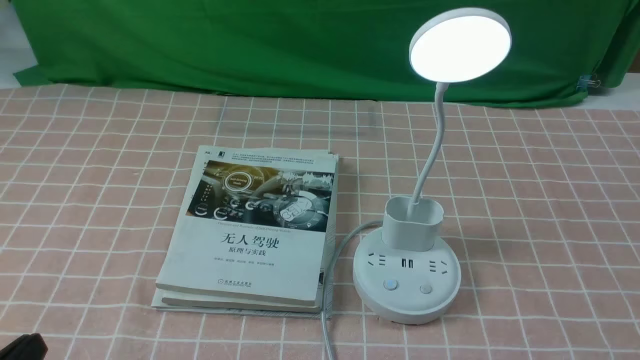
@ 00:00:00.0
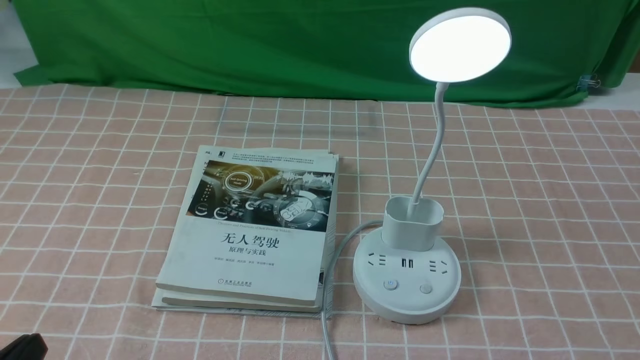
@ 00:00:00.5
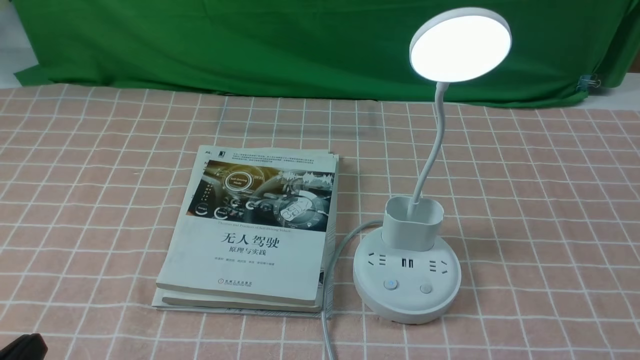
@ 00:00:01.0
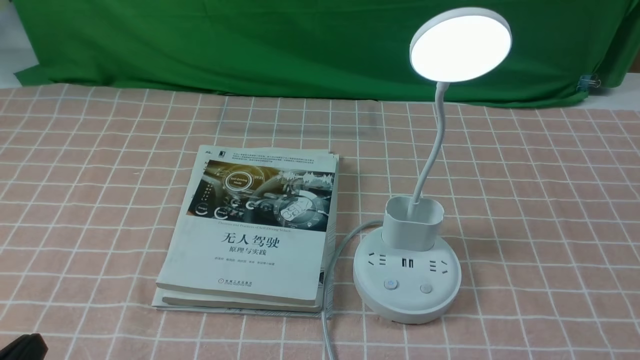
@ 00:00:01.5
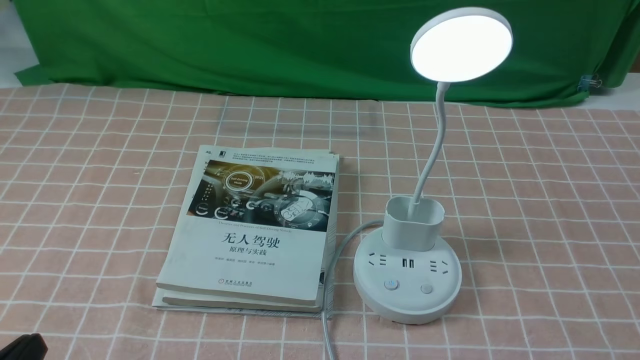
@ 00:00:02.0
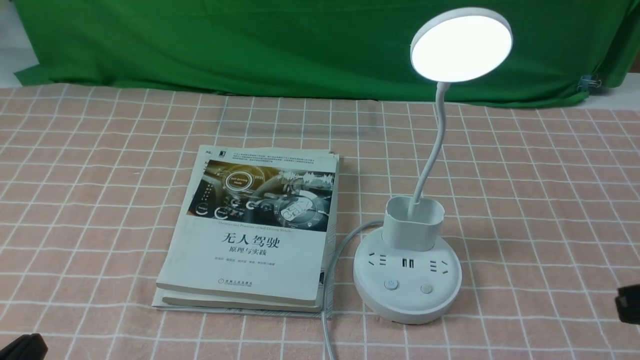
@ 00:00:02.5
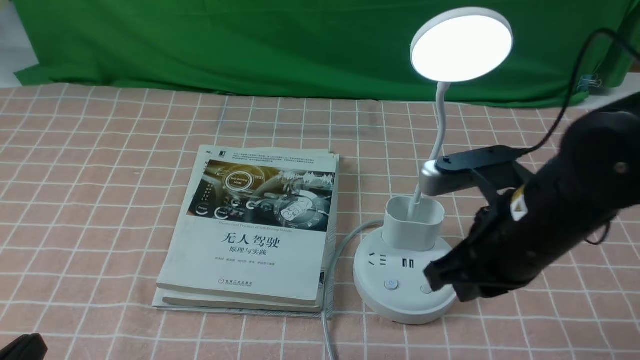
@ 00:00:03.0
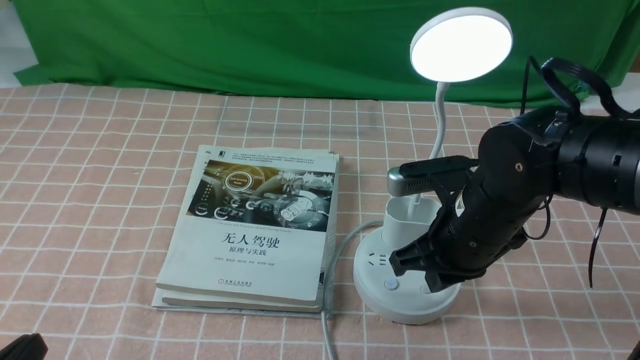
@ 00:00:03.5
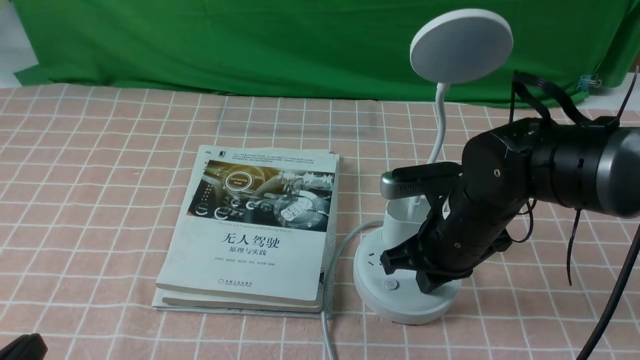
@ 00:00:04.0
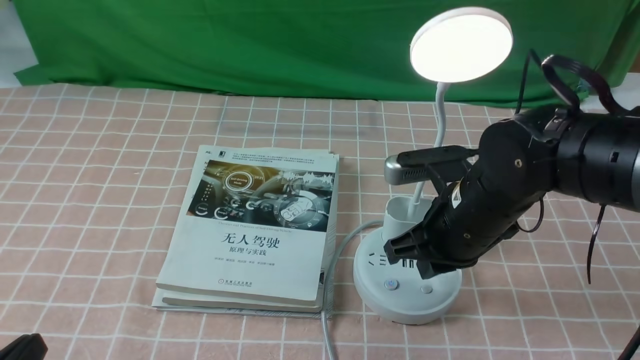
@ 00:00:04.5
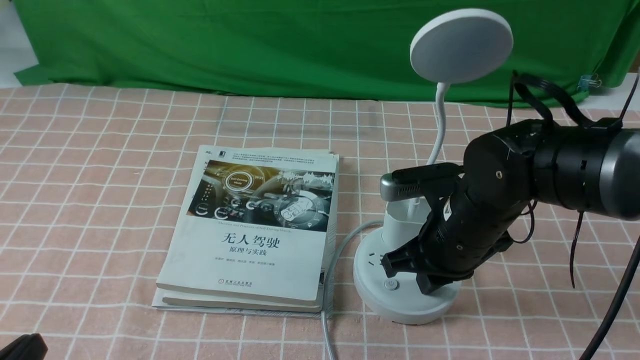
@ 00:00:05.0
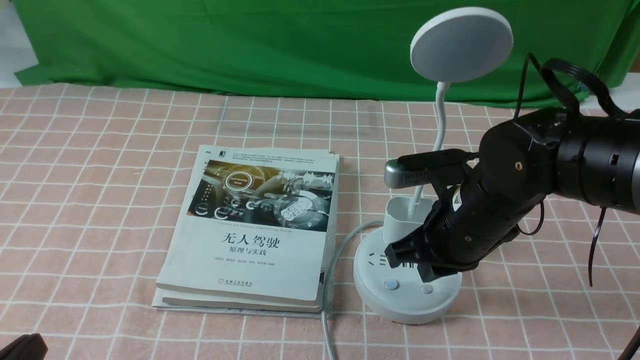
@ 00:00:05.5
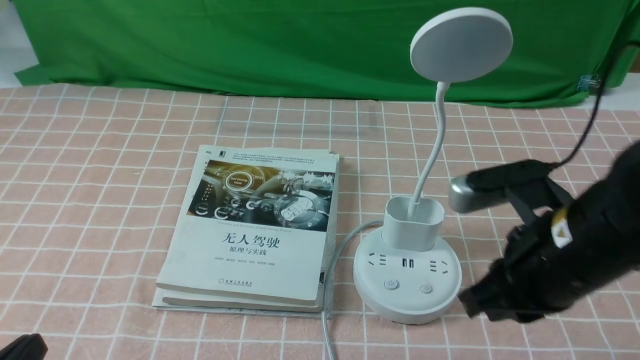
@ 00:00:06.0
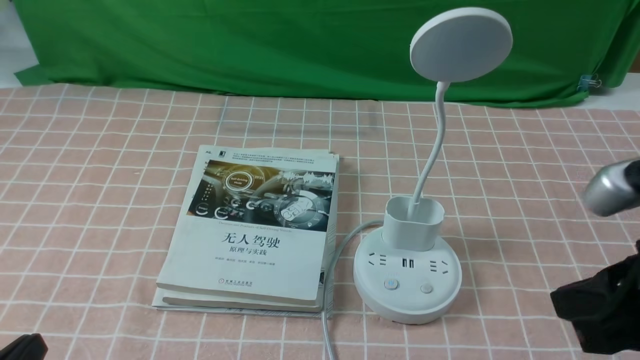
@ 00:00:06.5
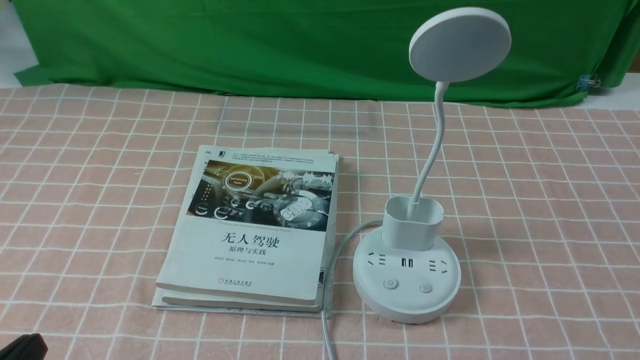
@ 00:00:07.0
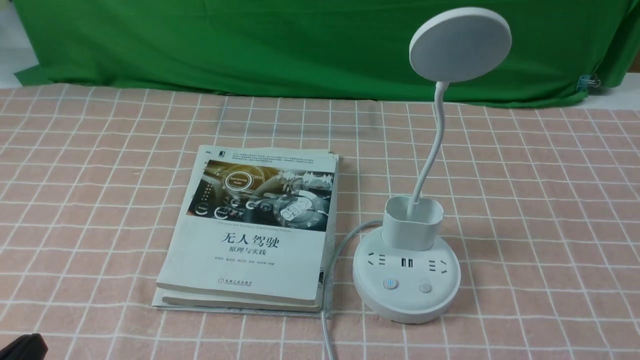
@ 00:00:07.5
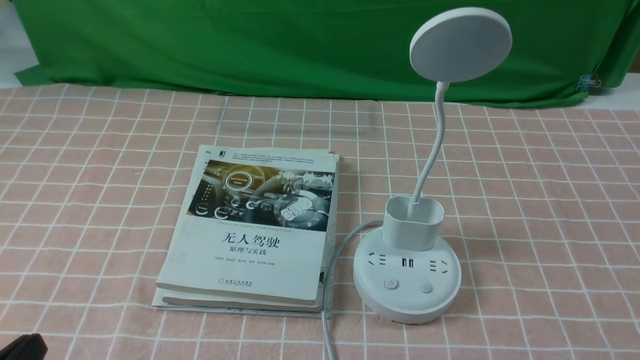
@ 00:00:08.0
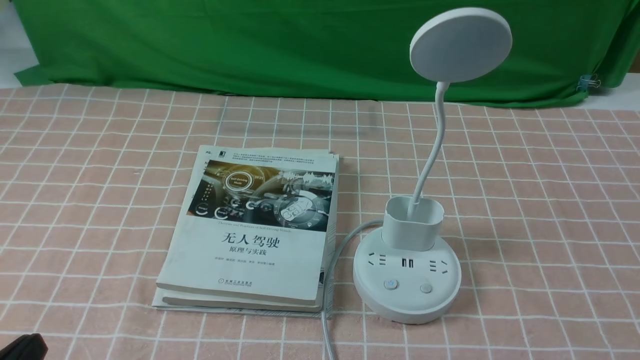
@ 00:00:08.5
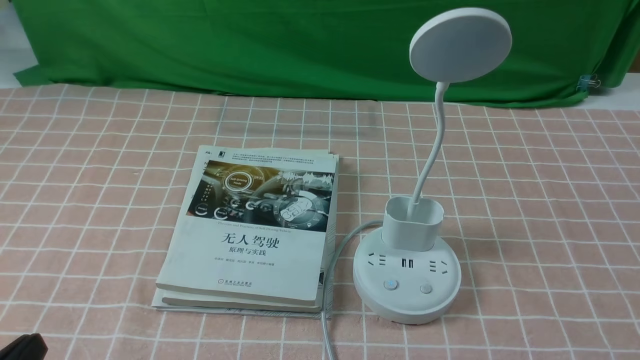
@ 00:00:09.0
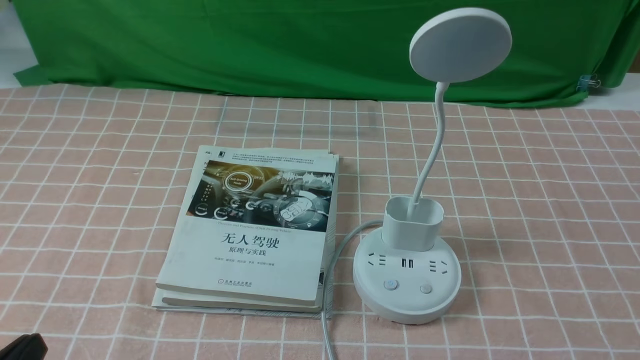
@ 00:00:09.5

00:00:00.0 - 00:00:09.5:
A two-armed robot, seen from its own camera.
Task of the whole recording: turn off the table lamp on the pink coffee tablecloth by hand.
Step, 00:00:00.0 - 00:00:05.5: use the right arm to press the button switch on the lamp holder.
00:00:02.0 - 00:00:04.0: The right gripper shifts roughly 30 cm forward and to the left, and closes.
00:00:04.0 - 00:00:05.5: The grippers stay close to where they were, moving slightly.
00:00:05.5 - 00:00:07.5: The right gripper moves backward and to the right, roughly 30 cm.

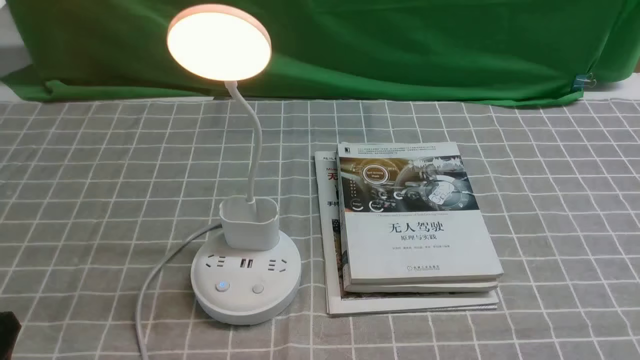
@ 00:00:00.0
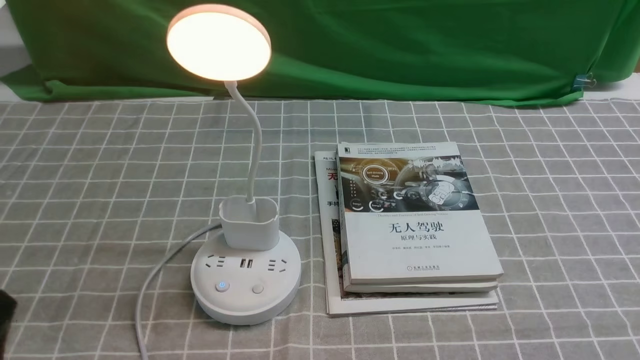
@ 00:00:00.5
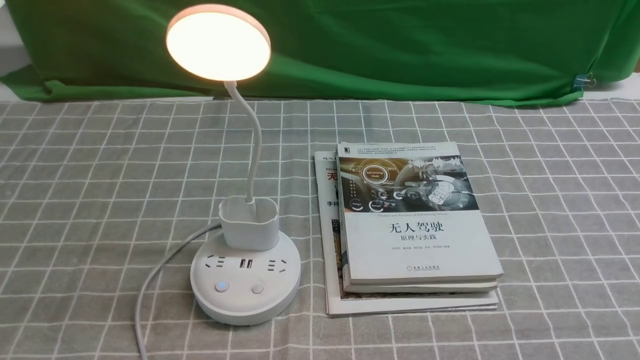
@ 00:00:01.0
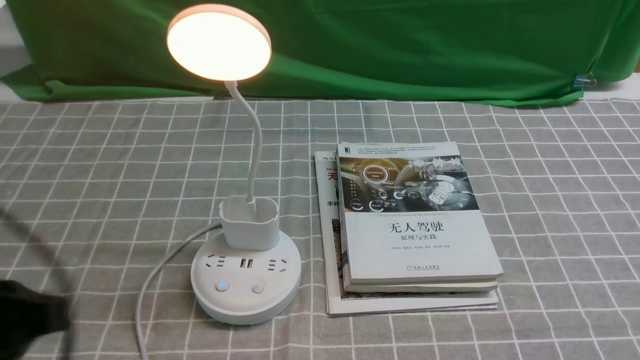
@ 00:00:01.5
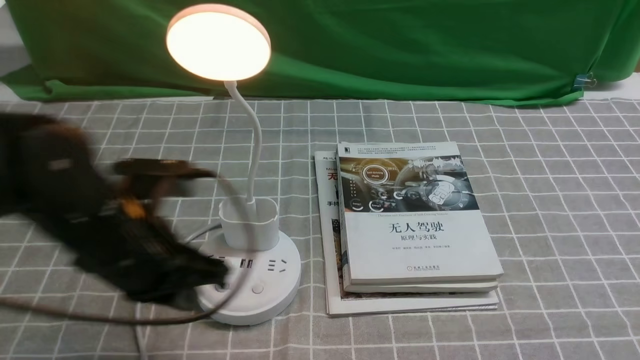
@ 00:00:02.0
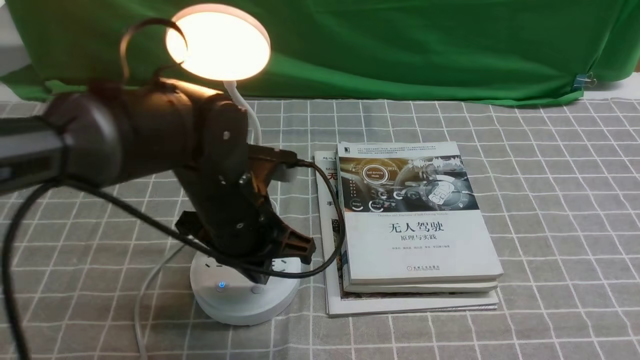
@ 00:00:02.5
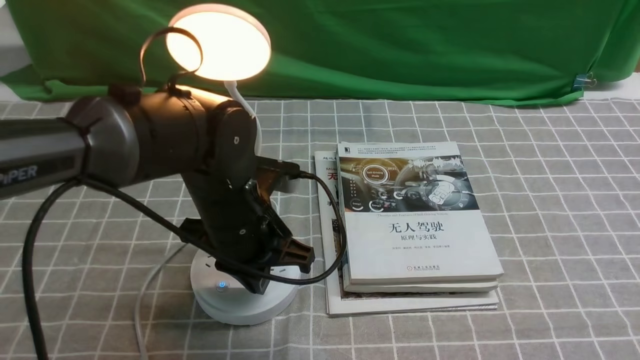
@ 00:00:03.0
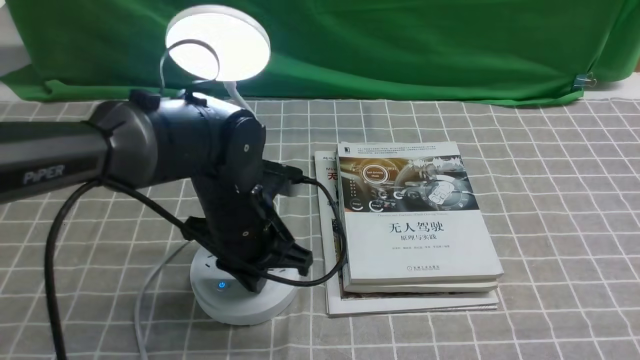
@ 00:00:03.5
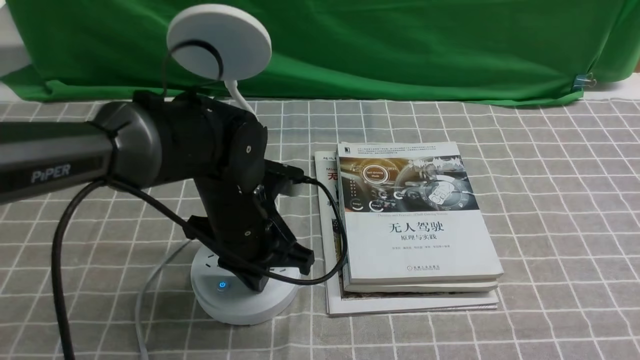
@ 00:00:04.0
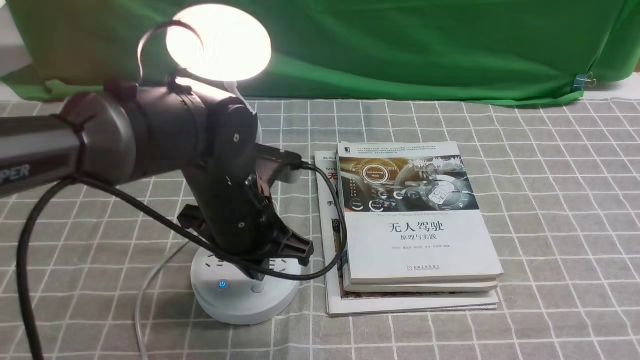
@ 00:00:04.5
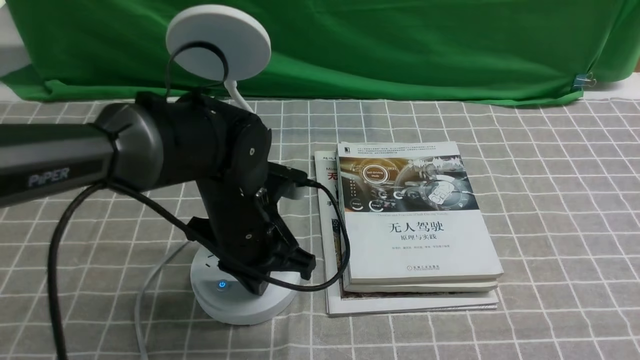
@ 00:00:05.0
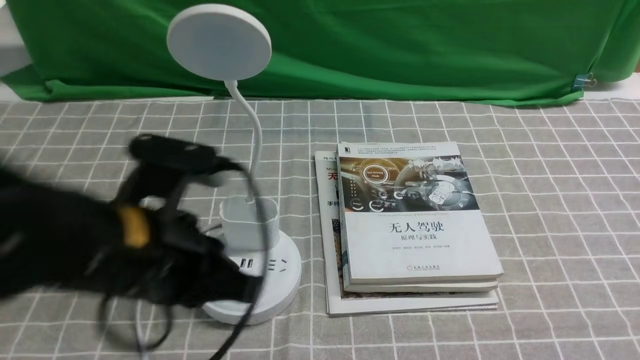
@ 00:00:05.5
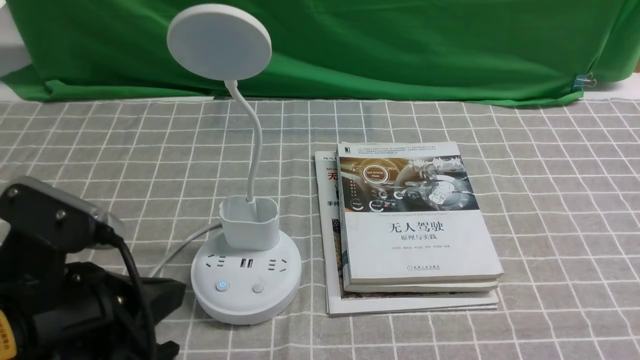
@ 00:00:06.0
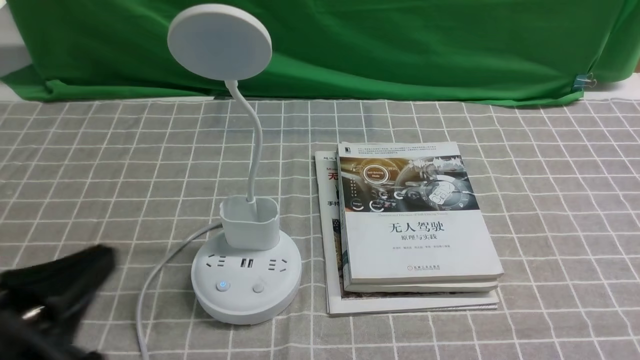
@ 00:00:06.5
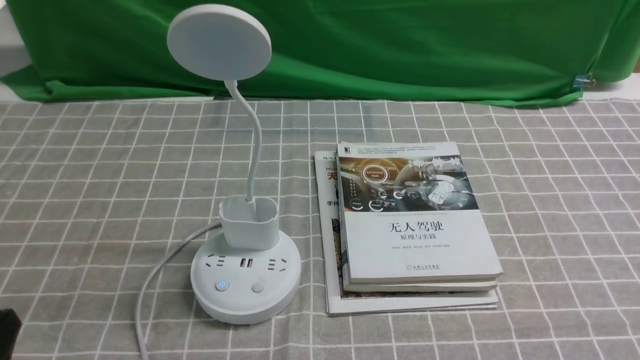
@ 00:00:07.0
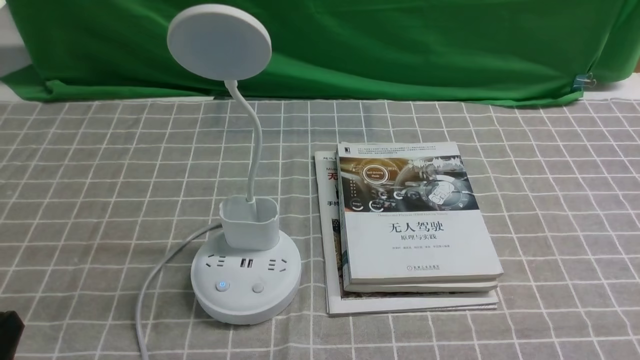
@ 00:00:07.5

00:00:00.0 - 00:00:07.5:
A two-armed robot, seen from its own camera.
Task of the whole recording: turn off the desk lamp on the grey coffee tablecloth by hand.
Step, 00:00:00.0 - 00:00:05.0: use the left arm to press the button switch on the lamp holder.
00:00:02.0 - 00:00:04.0: The left gripper heads to the right, forward and downward, covering some 15 cm.
00:00:04.0 - 00:00:05.5: The left gripper shifts roughly 10 cm backward and upward.
00:00:05.5 - 00:00:07.5: The left gripper travels backward, to the left and downward by about 20 cm, and opens.
